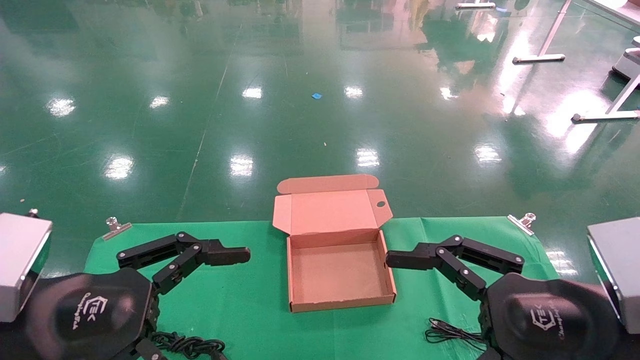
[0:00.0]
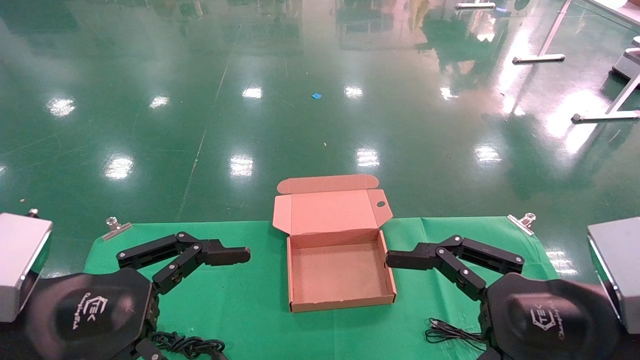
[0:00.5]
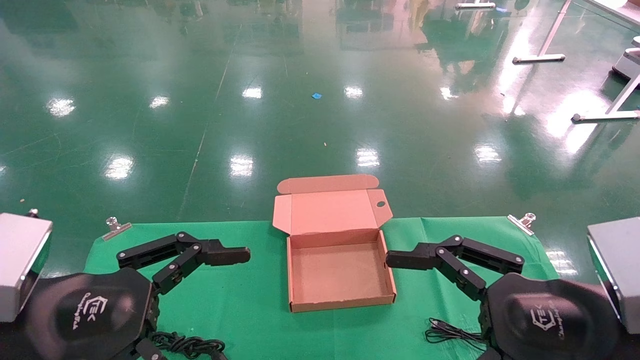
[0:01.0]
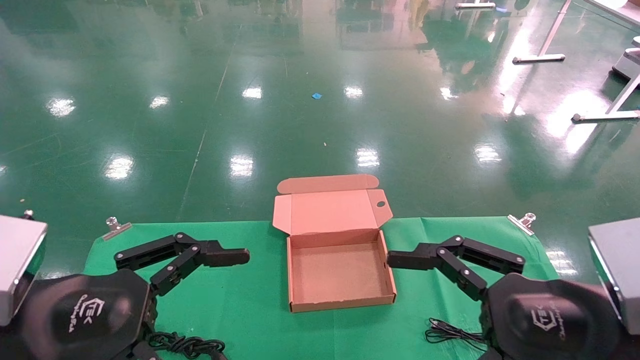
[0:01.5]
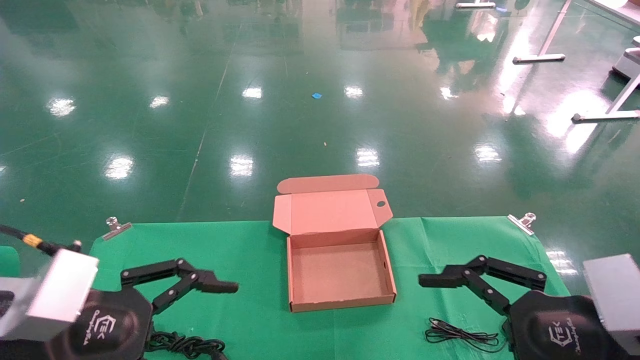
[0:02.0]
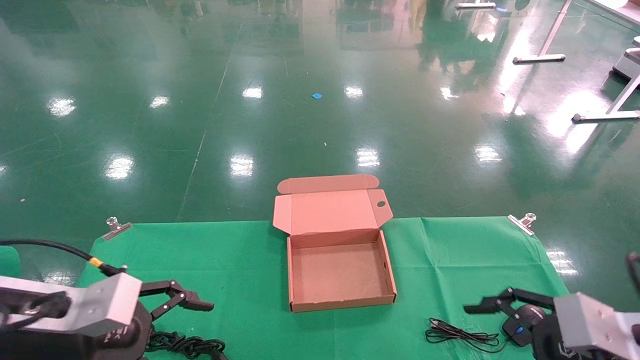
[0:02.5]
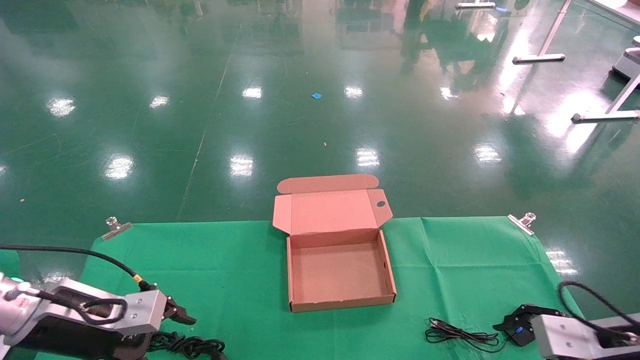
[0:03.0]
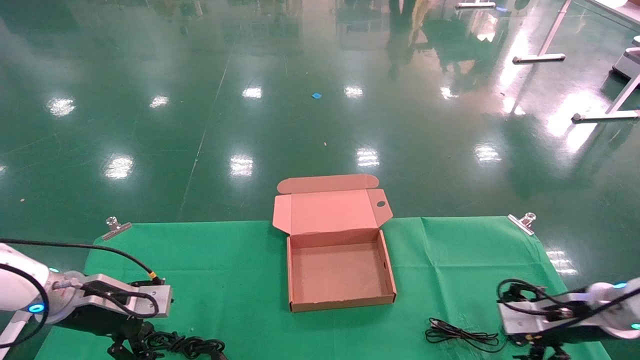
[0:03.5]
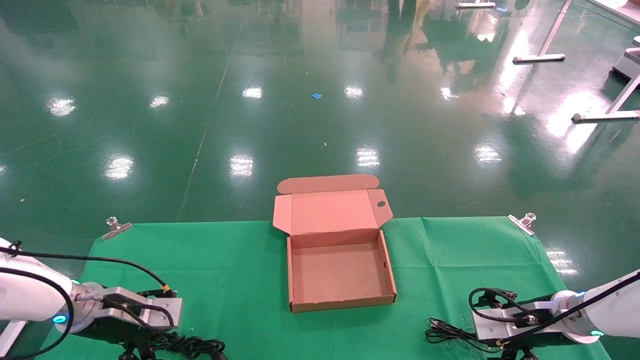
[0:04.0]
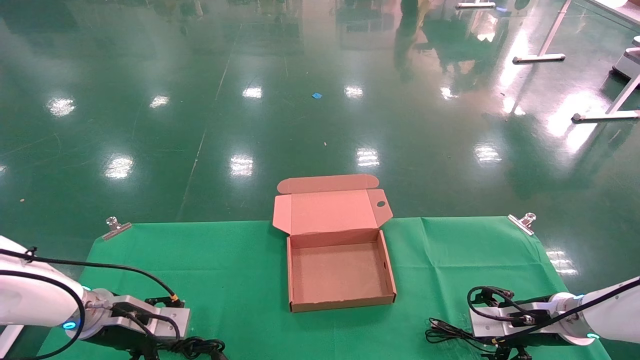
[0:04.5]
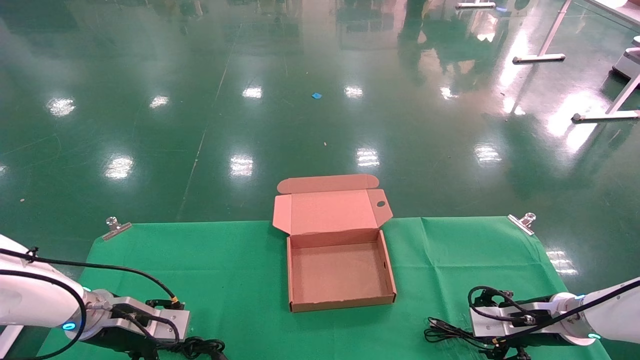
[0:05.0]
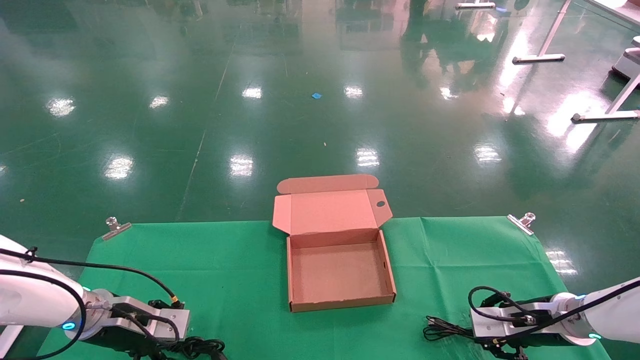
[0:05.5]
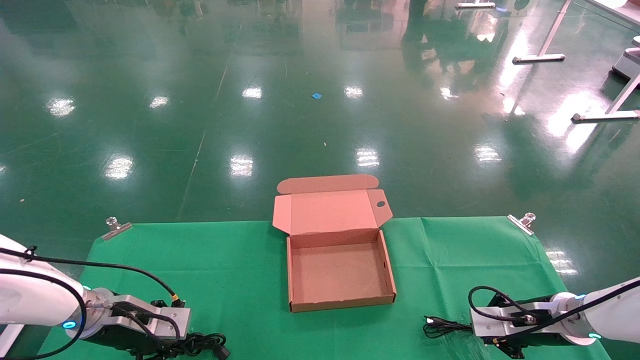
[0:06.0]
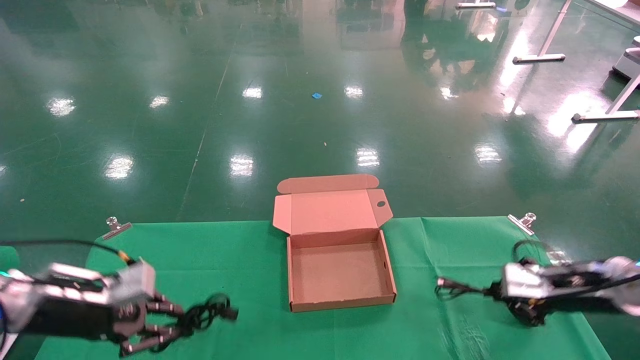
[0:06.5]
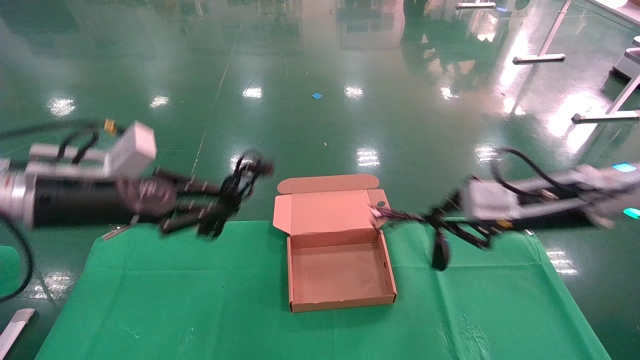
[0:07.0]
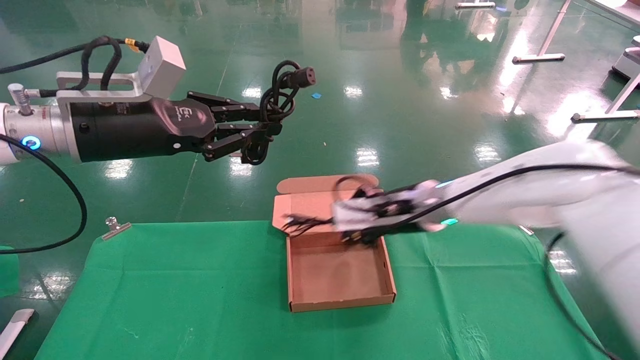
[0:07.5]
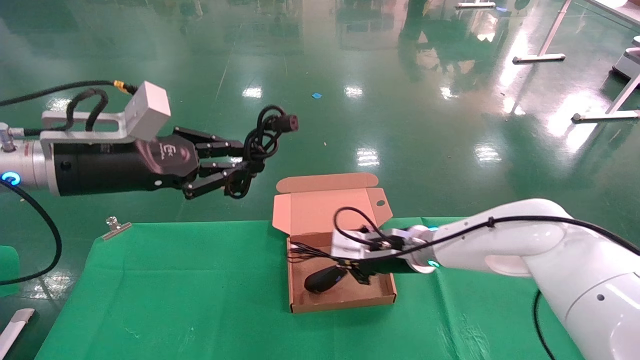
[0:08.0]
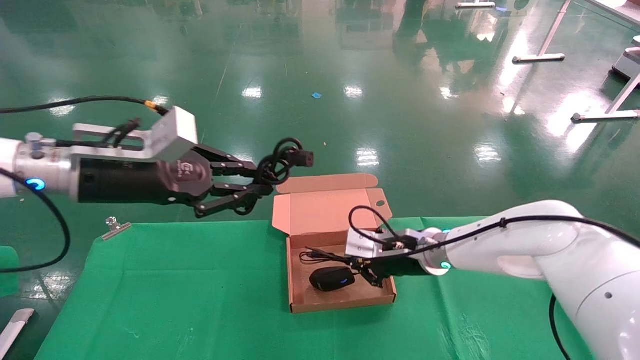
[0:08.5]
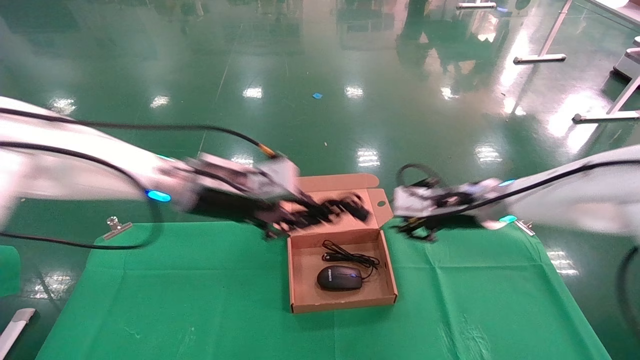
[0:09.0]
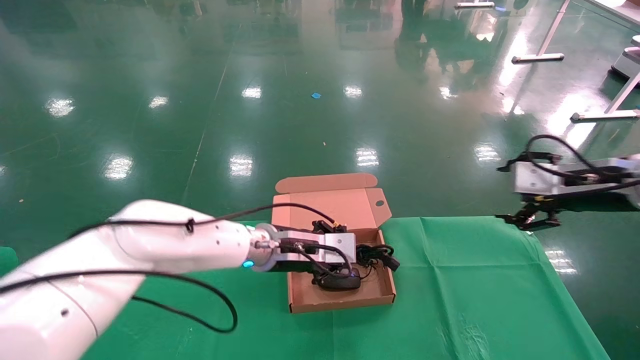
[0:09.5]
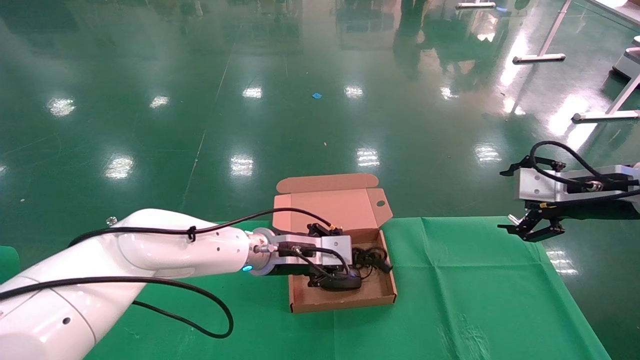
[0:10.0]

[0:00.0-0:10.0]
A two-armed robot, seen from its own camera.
Step, 0:02.0 to 0:05.5: Grab and lift both the mouse and power cord from the accessory packaging area at the same time.
Step, 0:06.0 to 0:09.5: Place the mouse and power cord into the box.
0:00.0 to 0:02.0: The grippers stay close to where they were, moving slightly.
0:02.0 to 0:04.0: The two grippers go roughly 25 cm forward and downward.
0:04.0 to 0:06.0: The right gripper closes, while the left gripper closes.
0:06.0 to 0:08.0: The right gripper moves to the left and upward, roughly 25 cm. Meanwhile the left gripper moves upward, approximately 25 cm.
0:08.0 to 0:10.0: The right gripper travels to the right and upward by about 30 cm, and opens up. The left gripper heads to the right, downward and forward, covering approximately 30 cm.

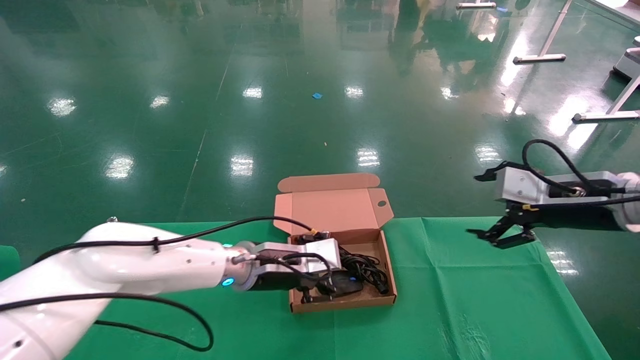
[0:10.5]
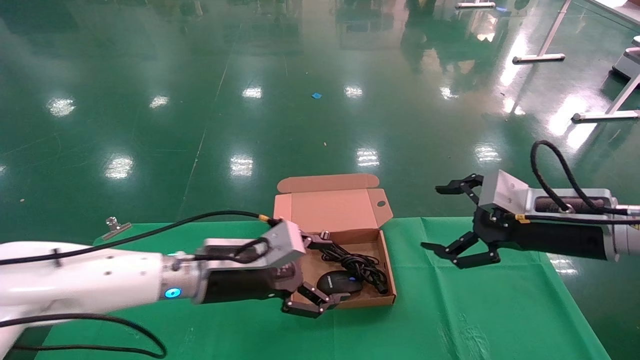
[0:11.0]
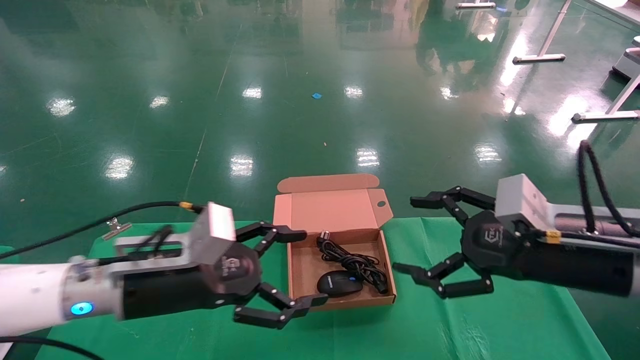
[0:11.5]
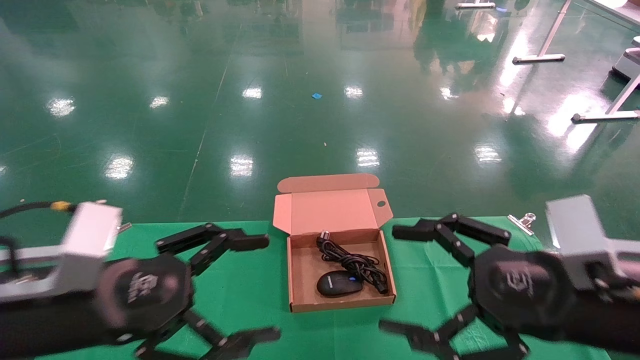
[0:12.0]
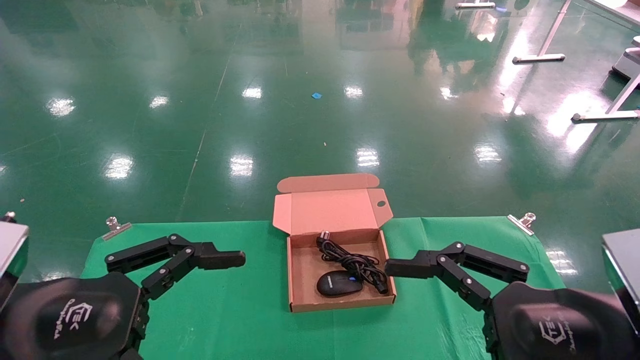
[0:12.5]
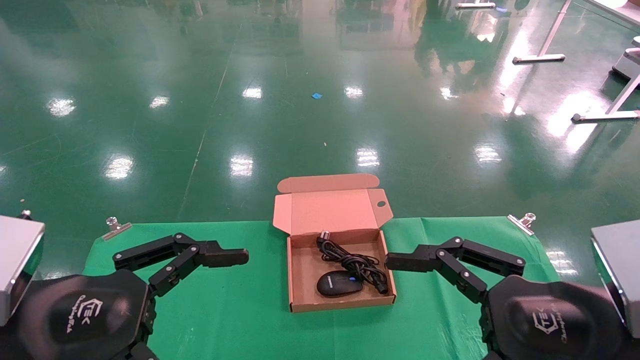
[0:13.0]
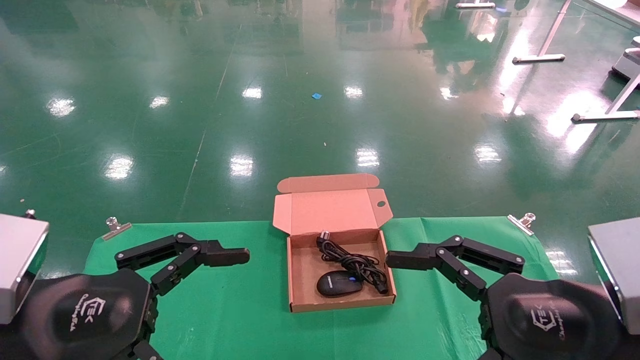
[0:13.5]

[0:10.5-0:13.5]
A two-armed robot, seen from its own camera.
0:10.5 to 0:12.0: Both grippers move backward and to the left, roughly 20 cm. The left gripper opens.
